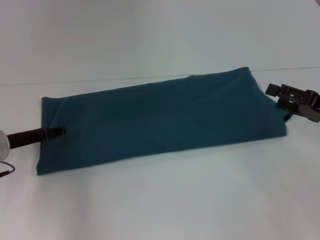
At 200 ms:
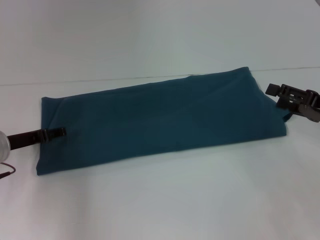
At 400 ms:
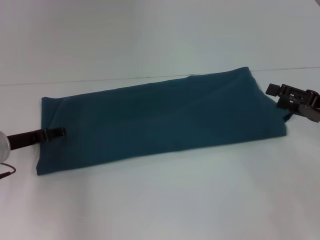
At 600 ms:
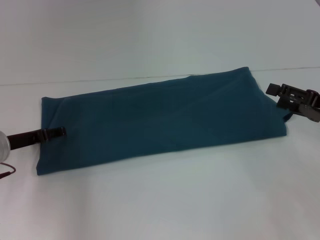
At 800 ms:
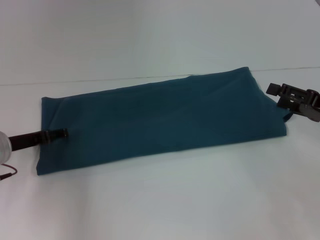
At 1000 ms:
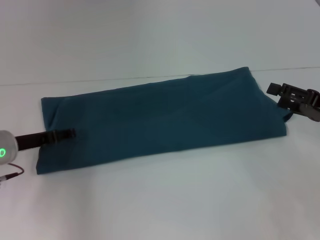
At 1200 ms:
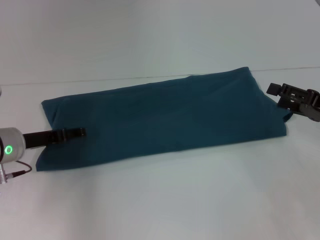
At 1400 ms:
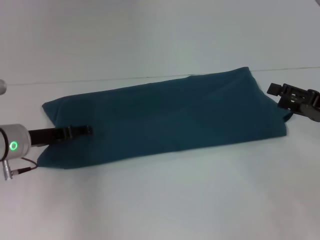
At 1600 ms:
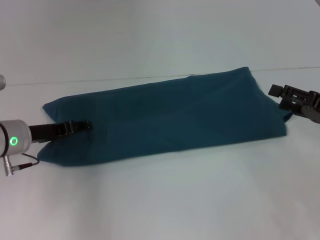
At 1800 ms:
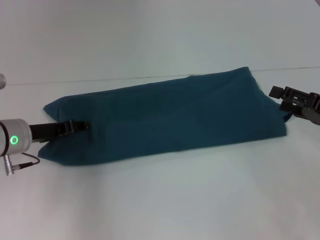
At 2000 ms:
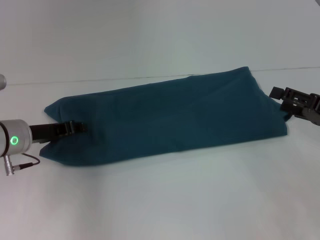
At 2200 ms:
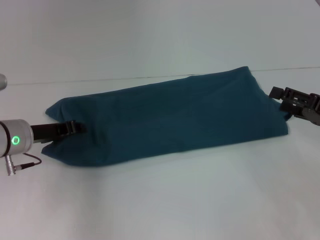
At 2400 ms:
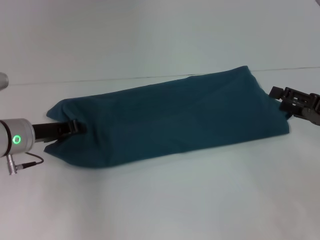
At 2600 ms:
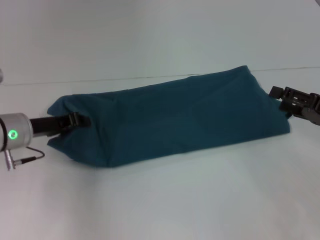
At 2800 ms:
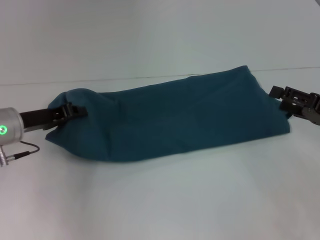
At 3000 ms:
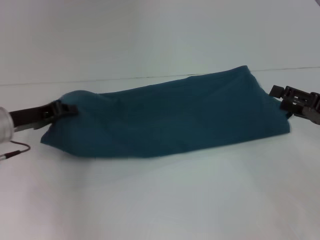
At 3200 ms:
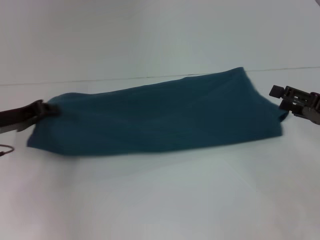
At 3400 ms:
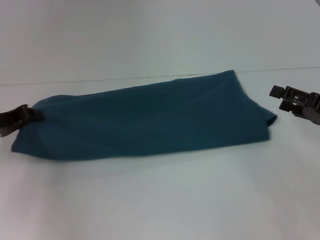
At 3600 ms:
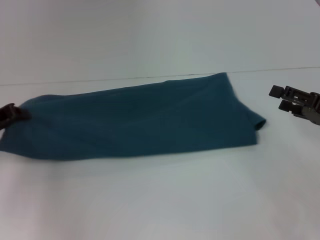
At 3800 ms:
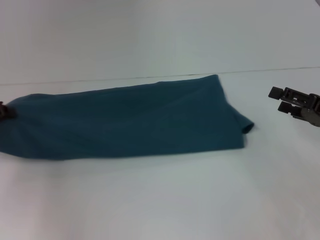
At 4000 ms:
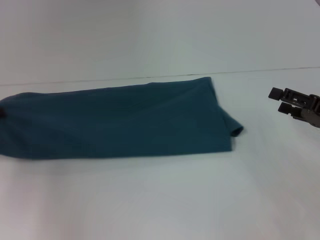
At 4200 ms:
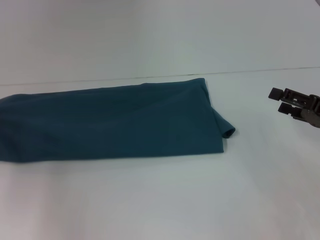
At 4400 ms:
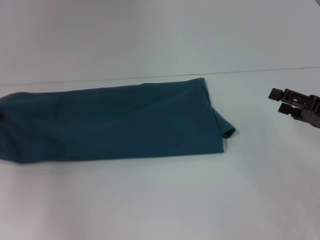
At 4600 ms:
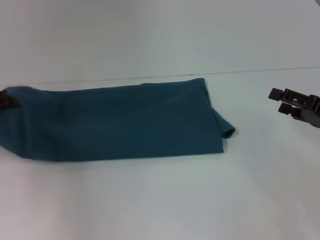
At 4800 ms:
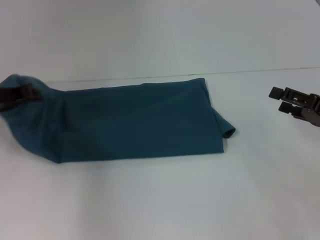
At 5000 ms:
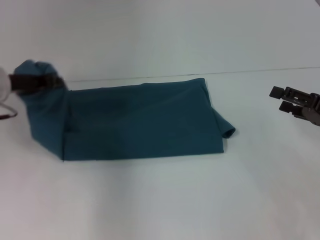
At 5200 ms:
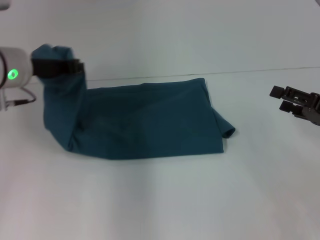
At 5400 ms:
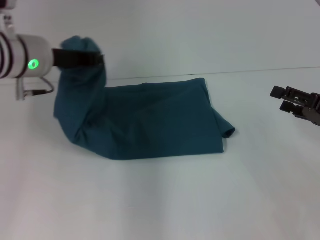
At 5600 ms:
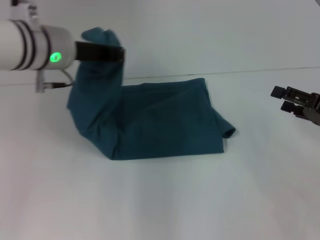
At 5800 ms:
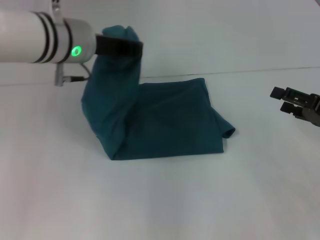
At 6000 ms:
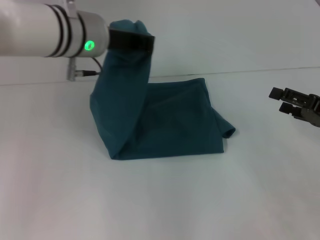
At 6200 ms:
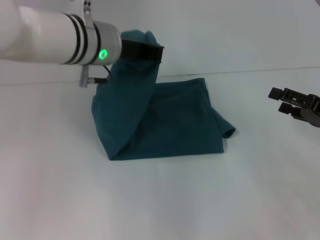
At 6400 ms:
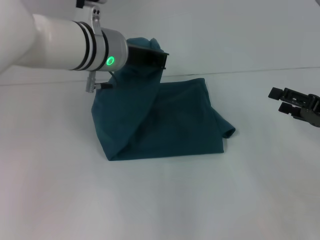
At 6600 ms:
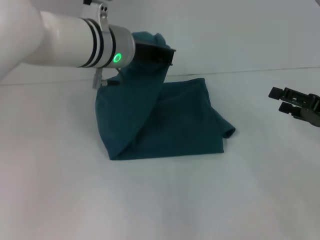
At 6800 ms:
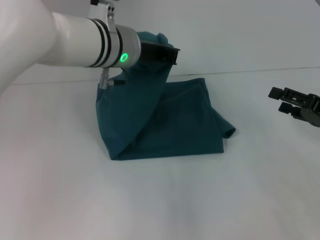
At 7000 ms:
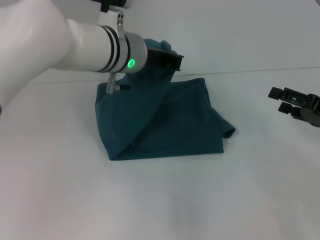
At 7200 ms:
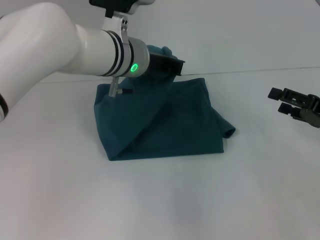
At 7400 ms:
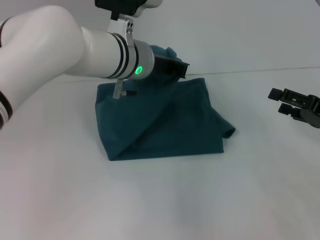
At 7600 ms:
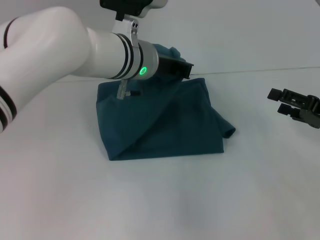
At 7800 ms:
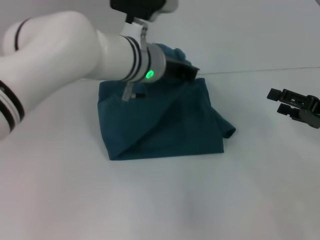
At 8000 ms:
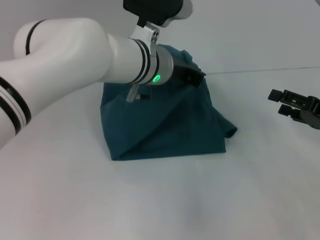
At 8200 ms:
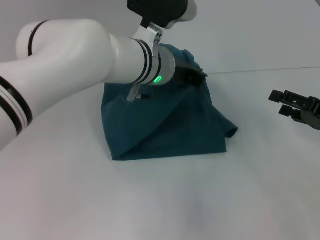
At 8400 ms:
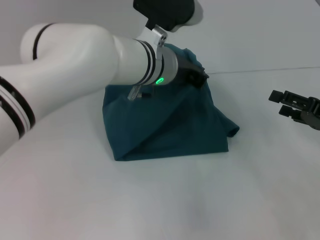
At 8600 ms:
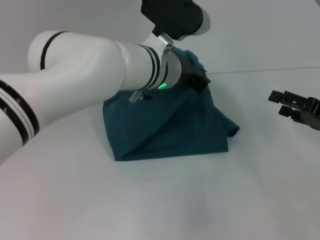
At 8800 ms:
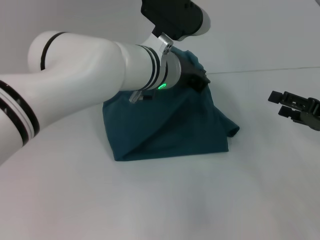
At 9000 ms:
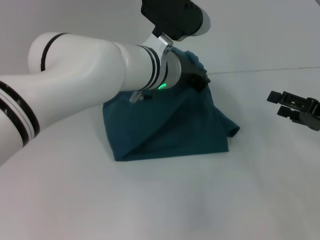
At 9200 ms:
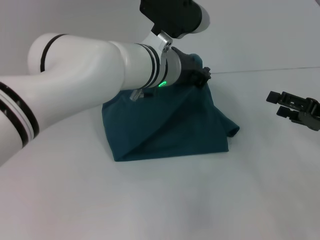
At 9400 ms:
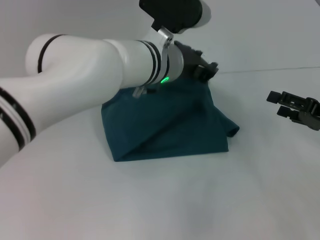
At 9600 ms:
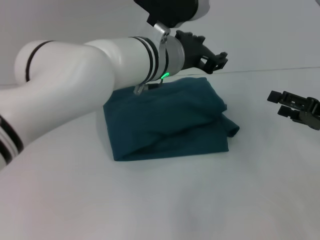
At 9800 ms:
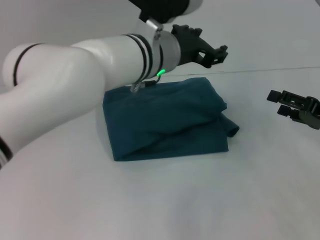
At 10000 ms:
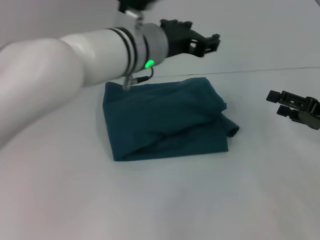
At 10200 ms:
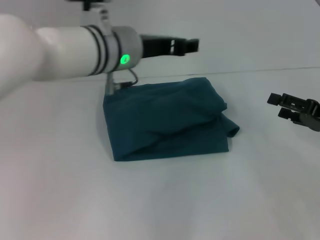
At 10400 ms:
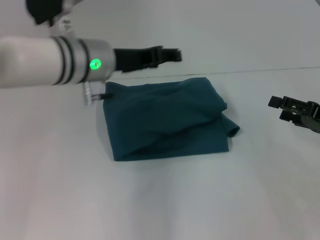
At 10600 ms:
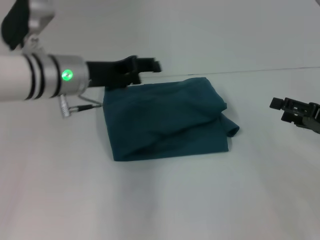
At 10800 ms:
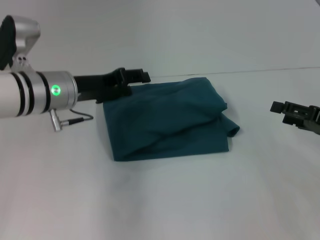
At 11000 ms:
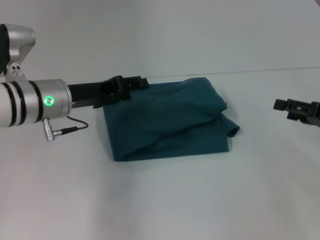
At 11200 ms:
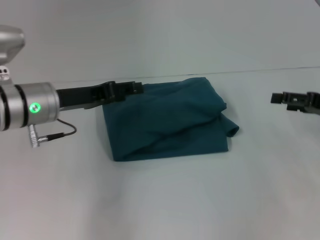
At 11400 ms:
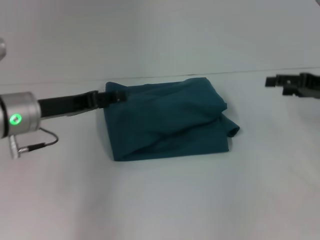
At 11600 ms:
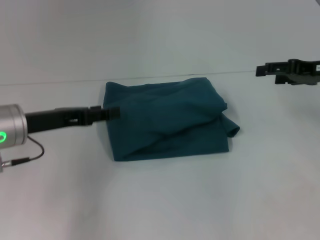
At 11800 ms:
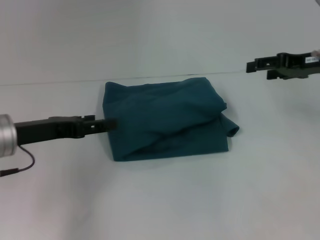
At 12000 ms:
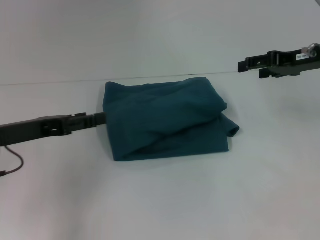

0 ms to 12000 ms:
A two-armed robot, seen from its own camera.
Step, 0 ms to 9600 ms: Fold the clothes to the left.
0 ms to 1600 ms: The grippers stay close to where they were, moving slightly.
1600 ms to 3000 ms: The left gripper closes up.
3000 ms to 4400 ms: The left gripper is displaced to the left by approximately 10 cm.
4400 ms to 6000 ms: The left gripper is displaced to the right and upward by about 30 cm.
6000 ms to 7600 ms: The left gripper travels to the right by roughly 5 cm.
9000 ms to 10400 ms: The left gripper moves to the left, roughly 10 cm, and opens.
10400 ms to 12000 ms: The right gripper moves forward and upward, approximately 15 cm; the left gripper travels to the left and backward by some 15 cm.

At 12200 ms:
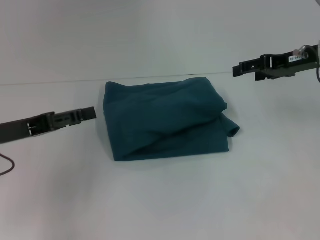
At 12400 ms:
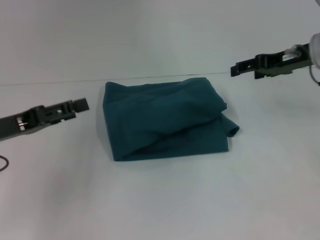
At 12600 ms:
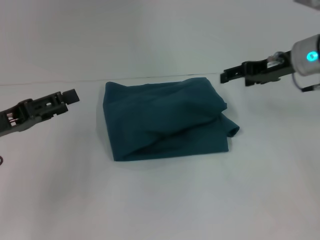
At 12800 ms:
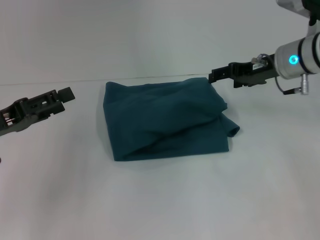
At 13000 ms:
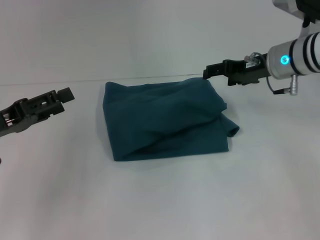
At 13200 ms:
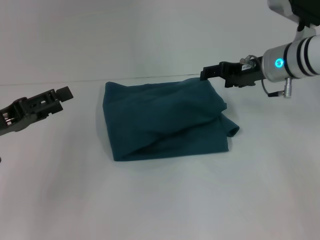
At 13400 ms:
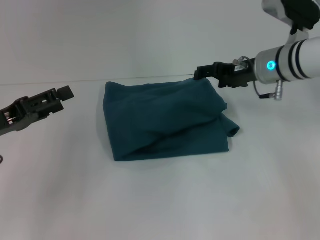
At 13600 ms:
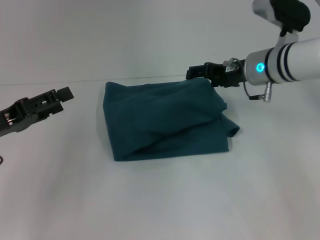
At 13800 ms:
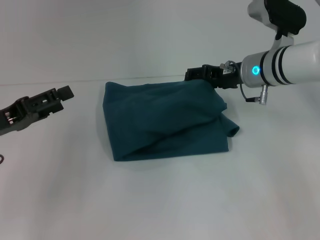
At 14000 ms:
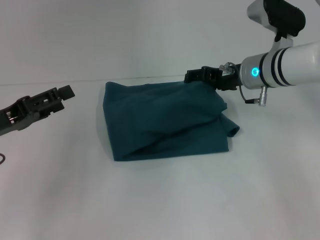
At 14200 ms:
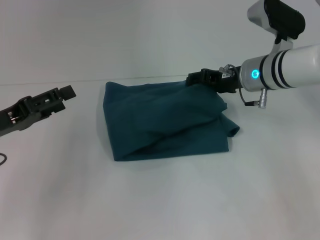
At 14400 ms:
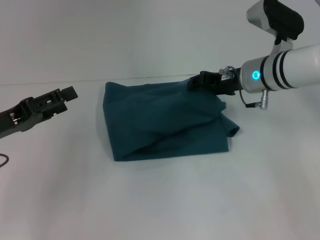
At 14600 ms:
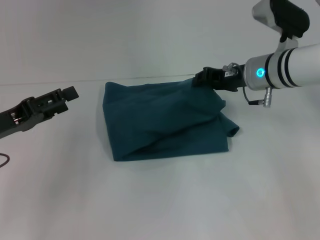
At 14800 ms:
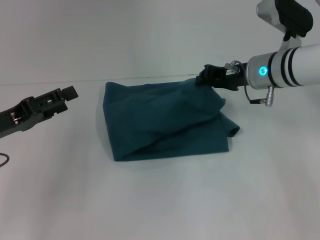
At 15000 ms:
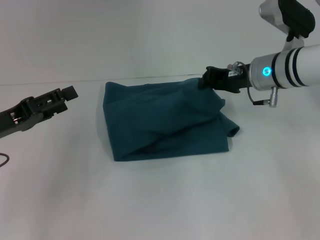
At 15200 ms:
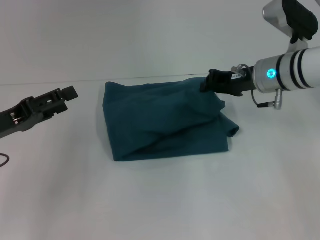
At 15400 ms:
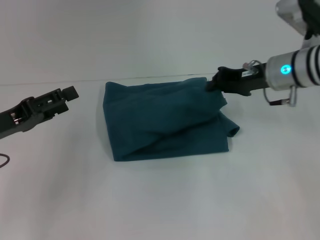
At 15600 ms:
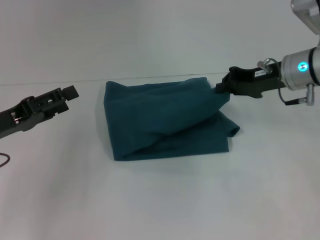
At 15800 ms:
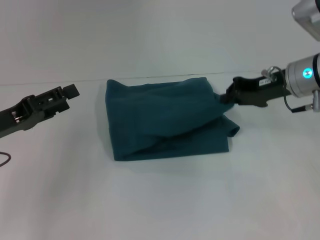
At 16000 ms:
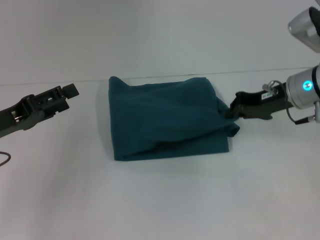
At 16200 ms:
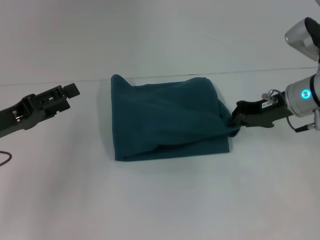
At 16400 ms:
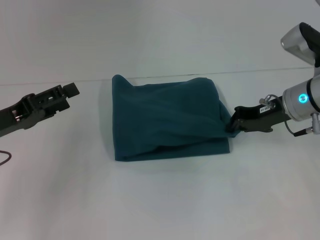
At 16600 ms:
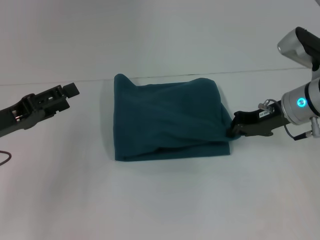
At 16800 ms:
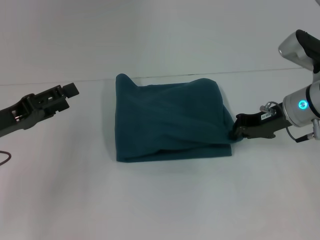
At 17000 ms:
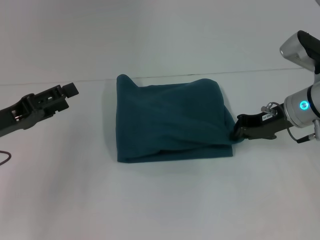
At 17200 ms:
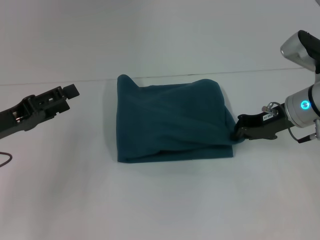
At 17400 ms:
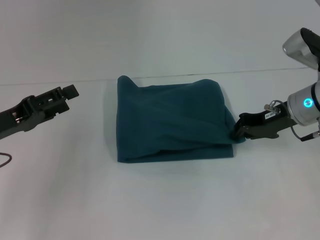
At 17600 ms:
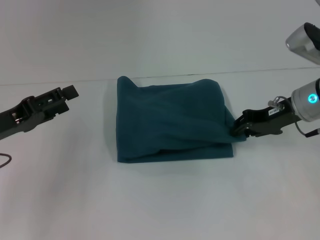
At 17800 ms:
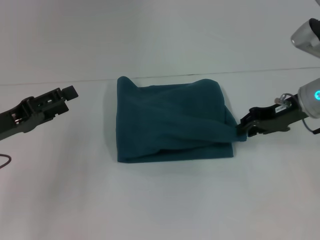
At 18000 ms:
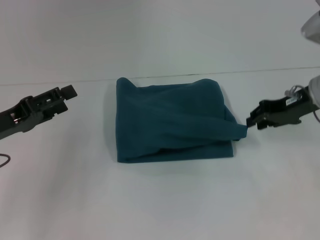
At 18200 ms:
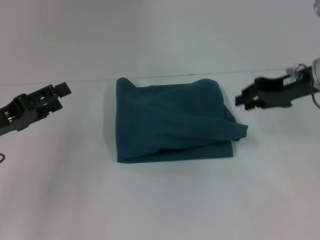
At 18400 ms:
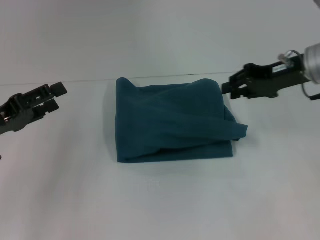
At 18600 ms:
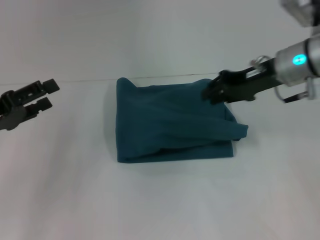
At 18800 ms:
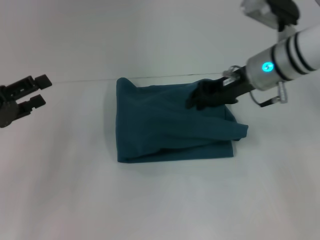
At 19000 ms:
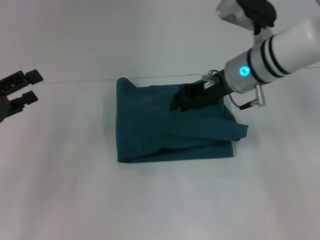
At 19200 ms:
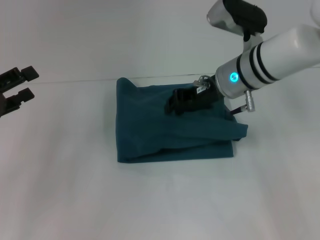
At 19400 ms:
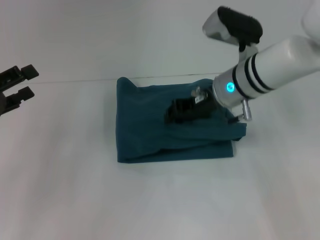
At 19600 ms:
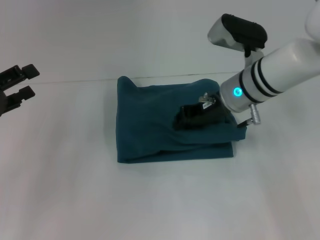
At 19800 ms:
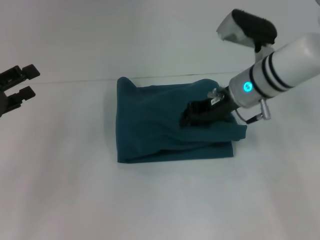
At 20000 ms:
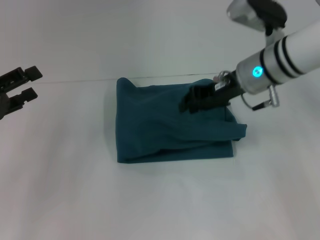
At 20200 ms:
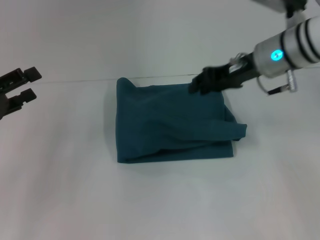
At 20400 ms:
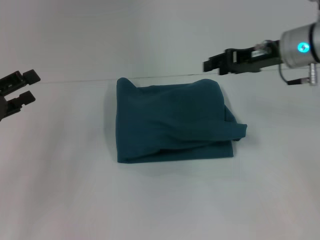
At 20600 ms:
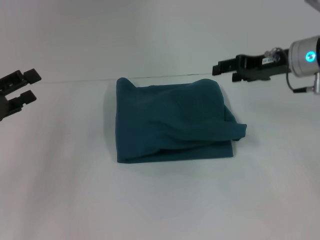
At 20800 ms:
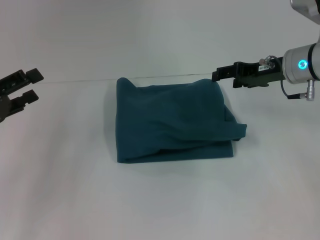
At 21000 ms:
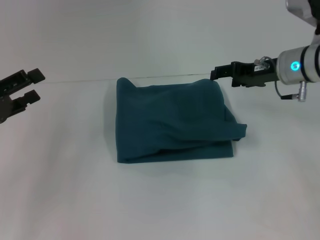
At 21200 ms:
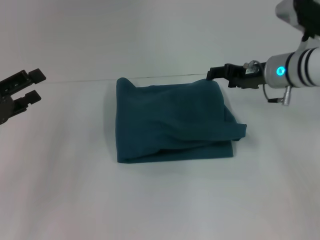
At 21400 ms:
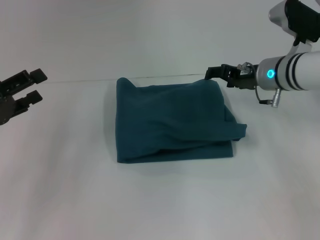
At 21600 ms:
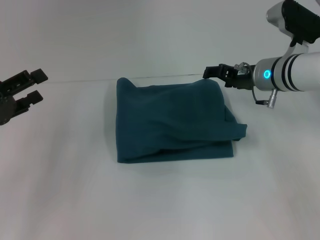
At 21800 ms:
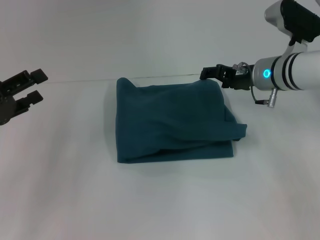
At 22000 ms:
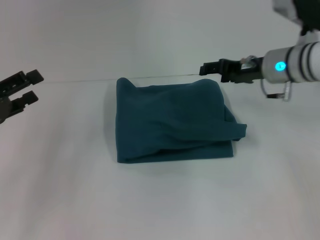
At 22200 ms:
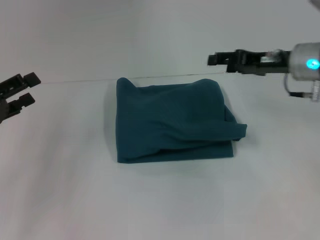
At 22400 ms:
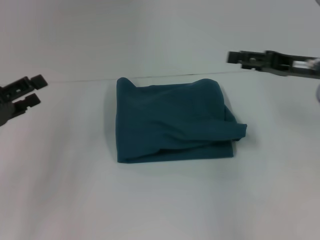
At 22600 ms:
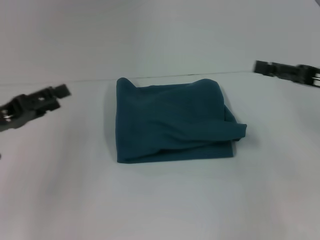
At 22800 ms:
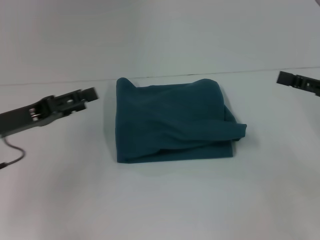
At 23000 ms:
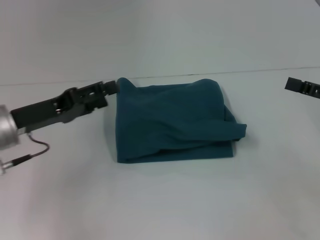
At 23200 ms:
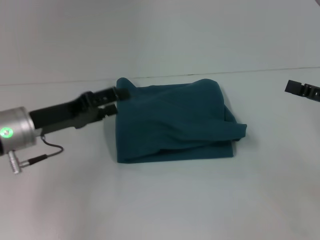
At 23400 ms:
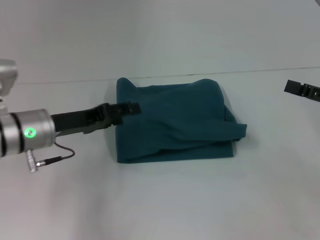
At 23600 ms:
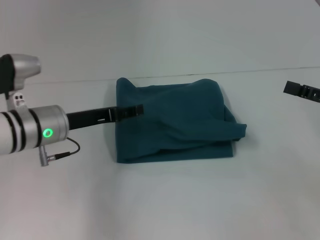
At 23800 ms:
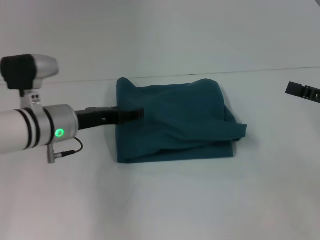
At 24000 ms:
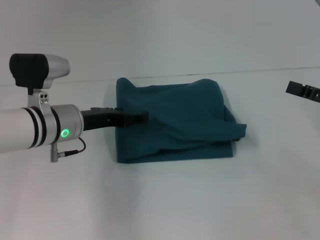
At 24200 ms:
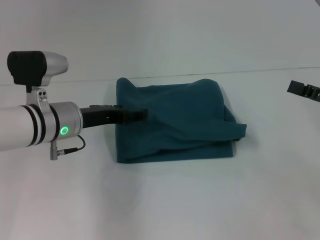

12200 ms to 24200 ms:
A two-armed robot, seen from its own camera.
12200 ms to 13800 ms: The right gripper shifts about 10 cm to the left and downward.
13800 ms to 15200 ms: The right gripper closes its fingers.
15200 ms to 16600 ms: The right gripper shifts by roughly 5 cm.
16600 ms to 18200 ms: The right gripper shifts about 5 cm upward.
18200 ms to 19800 ms: The right gripper moves to the left, approximately 10 cm.
19800 ms to 21200 ms: The right gripper is displaced to the right by approximately 5 cm, and opens.
21200 ms to 22600 ms: The right gripper travels backward and to the right by approximately 15 cm.
22600 ms to 24200 ms: The right gripper moves roughly 5 cm. The left gripper is displaced to the right and forward by approximately 15 cm.
